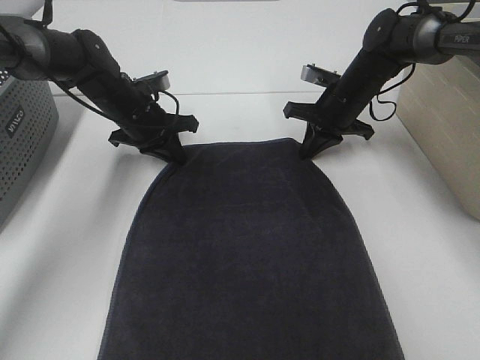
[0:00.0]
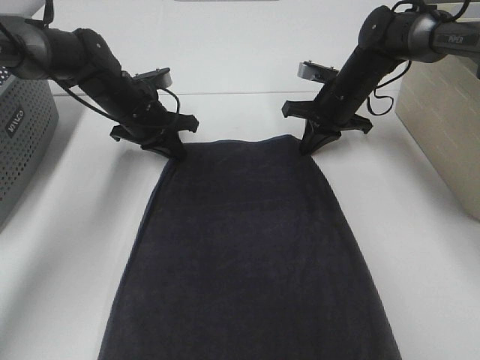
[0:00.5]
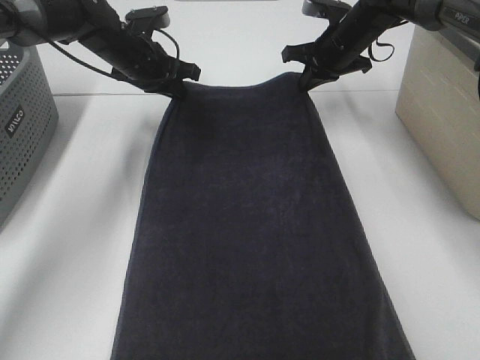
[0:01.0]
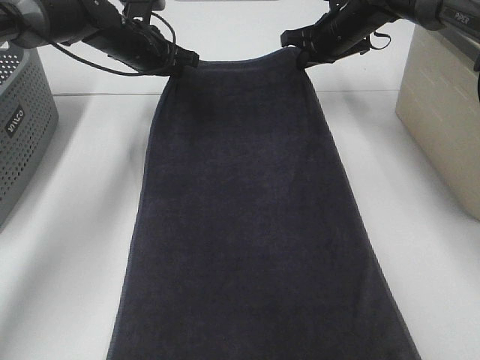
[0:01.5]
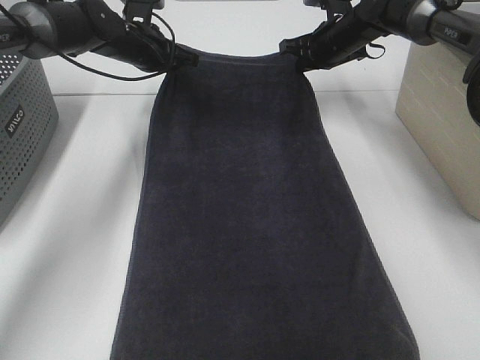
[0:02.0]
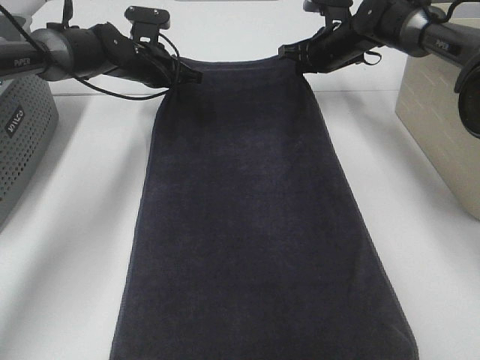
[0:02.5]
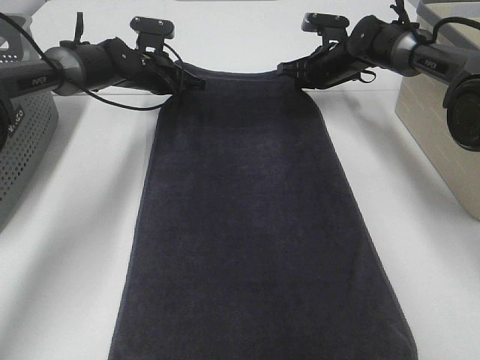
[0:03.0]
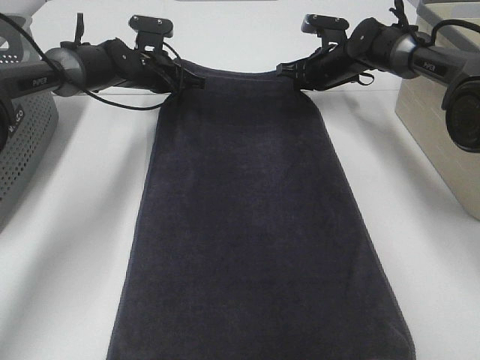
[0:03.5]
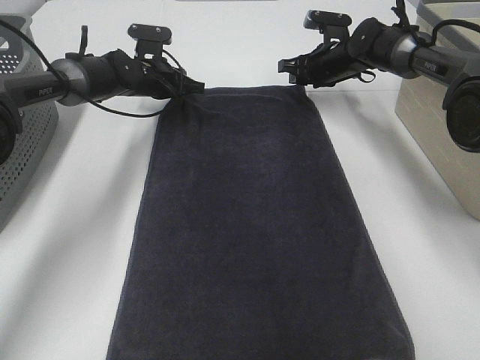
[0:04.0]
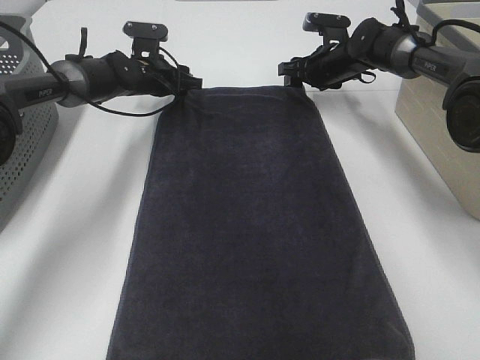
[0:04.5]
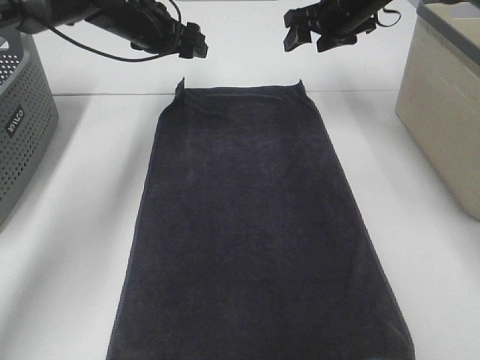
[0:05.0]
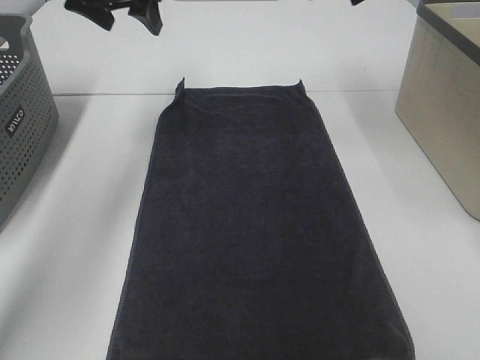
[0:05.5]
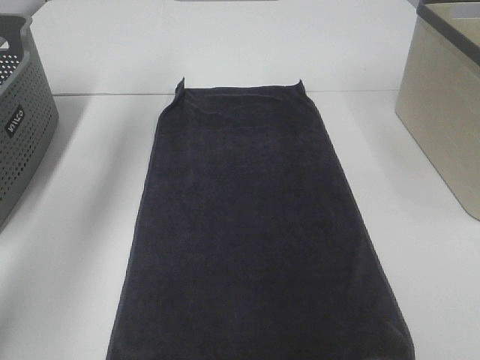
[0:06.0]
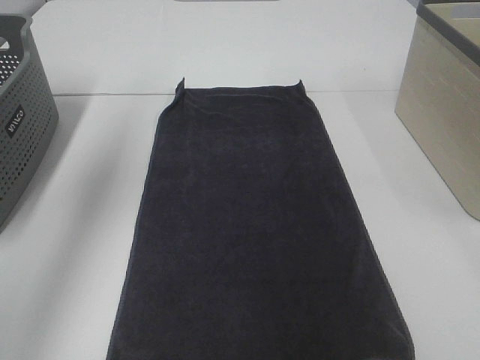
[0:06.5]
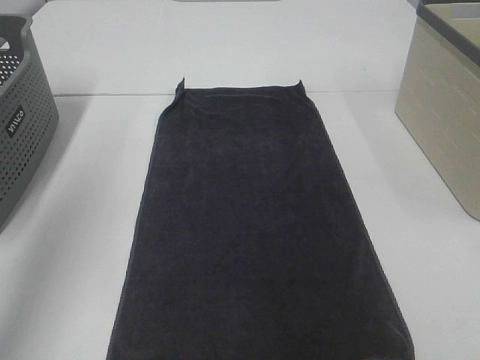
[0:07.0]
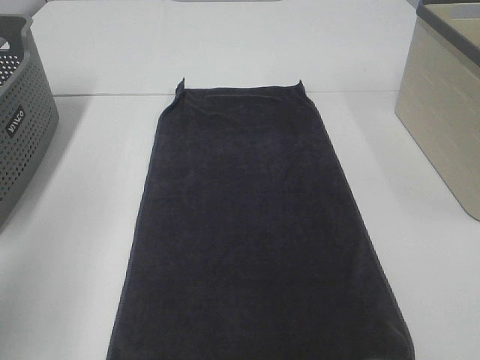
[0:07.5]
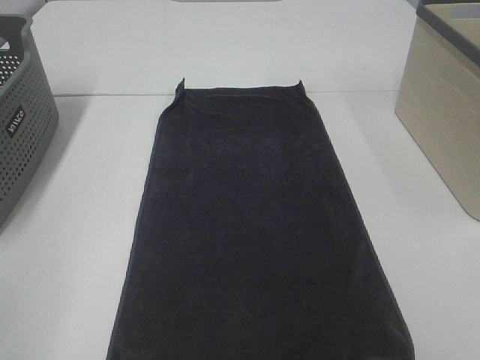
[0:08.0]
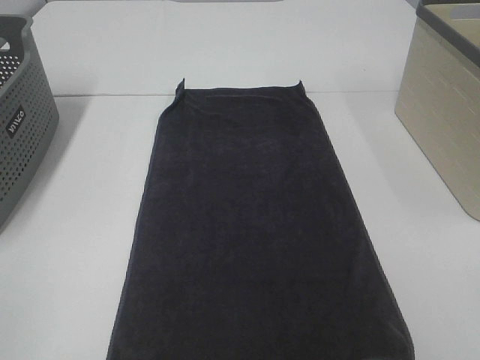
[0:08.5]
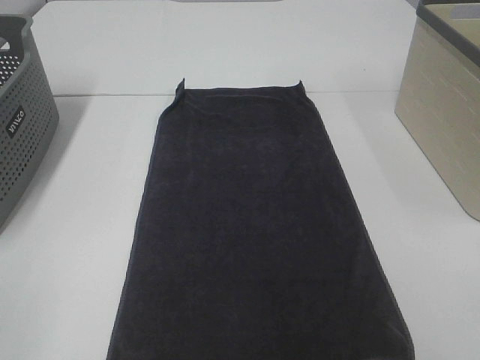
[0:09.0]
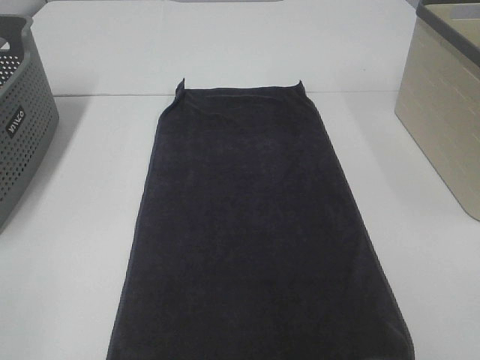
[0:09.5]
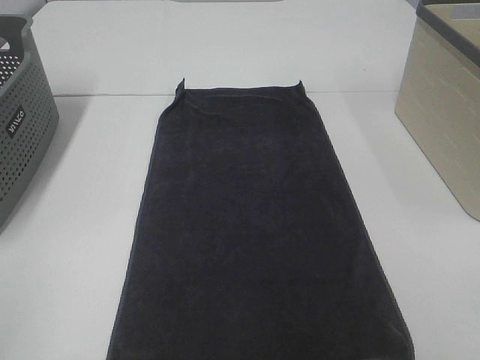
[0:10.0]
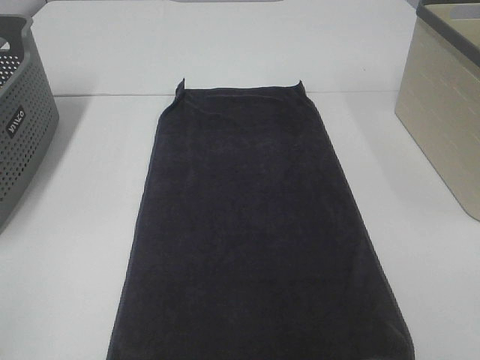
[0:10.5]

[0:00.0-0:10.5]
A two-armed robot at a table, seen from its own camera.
Task of the whole recording: Remove the towel and place it.
0:00.0 to 0:02.0: The grippers both shift forward and upward by about 10 cm.
0:02.0 to 0:04.0: The right gripper changes place by roughly 5 cm, and opens; the left gripper moves downward, about 5 cm.
0:04.0 to 0:06.5: The right gripper shifts some 50 cm backward and upward. The left gripper travels upward and backward by roughly 40 cm, and opens its fingers.
0:06.5 to 0:08.5: The left gripper shifts approximately 35 cm backward.

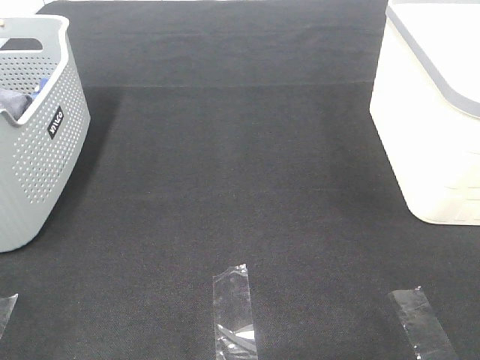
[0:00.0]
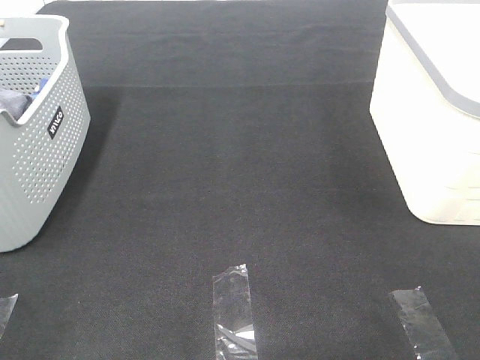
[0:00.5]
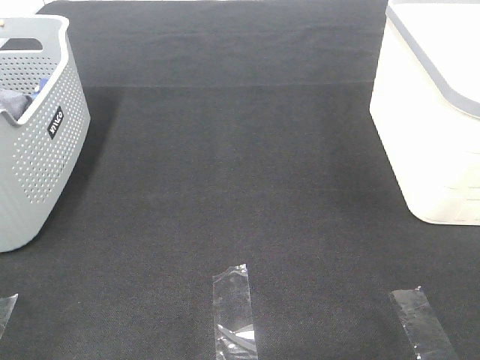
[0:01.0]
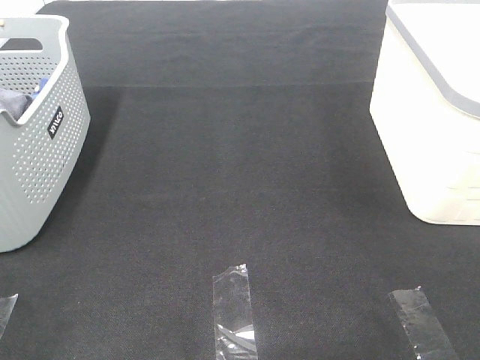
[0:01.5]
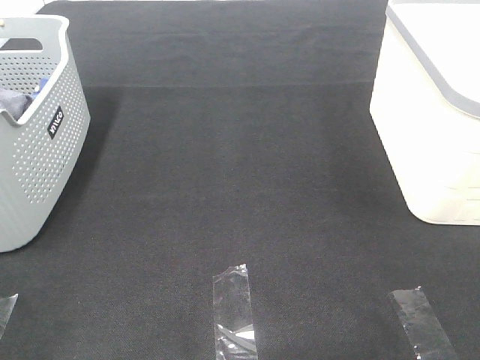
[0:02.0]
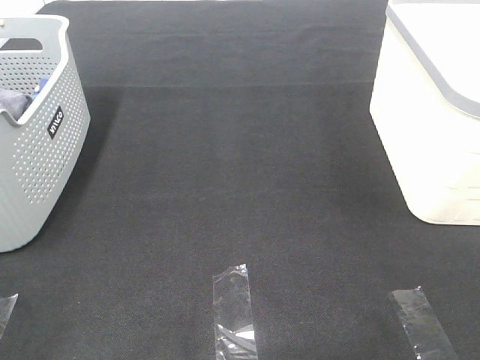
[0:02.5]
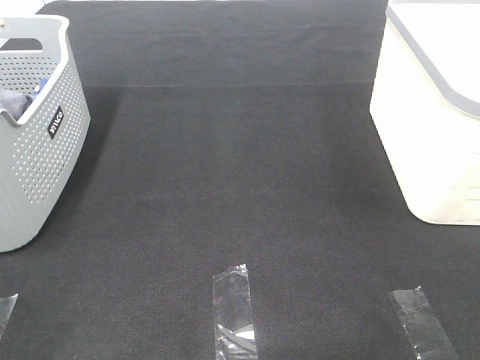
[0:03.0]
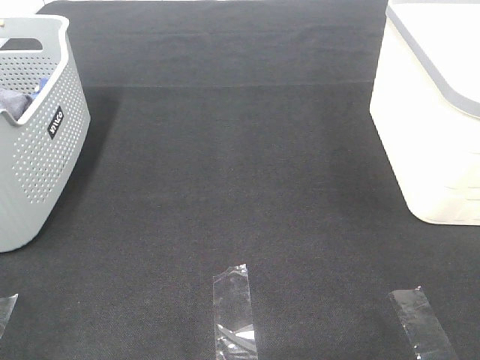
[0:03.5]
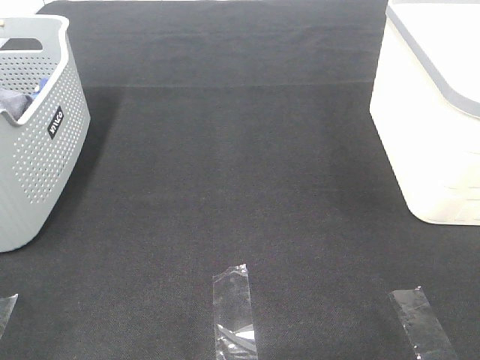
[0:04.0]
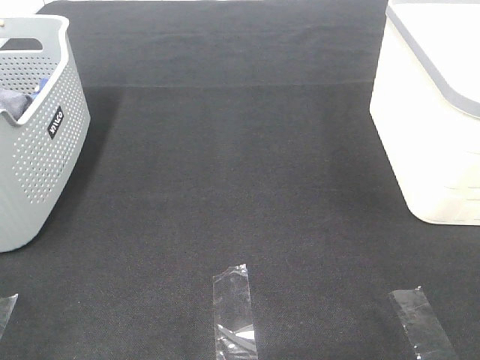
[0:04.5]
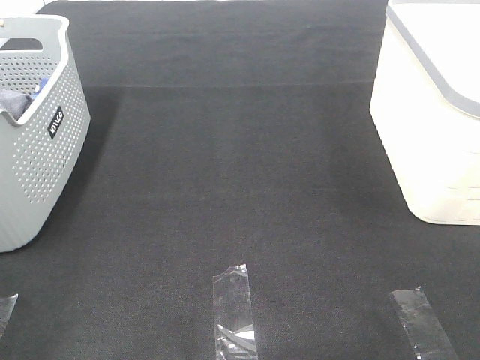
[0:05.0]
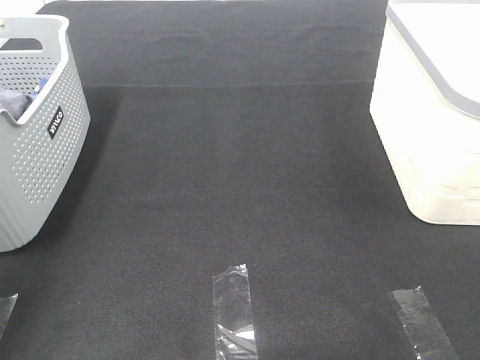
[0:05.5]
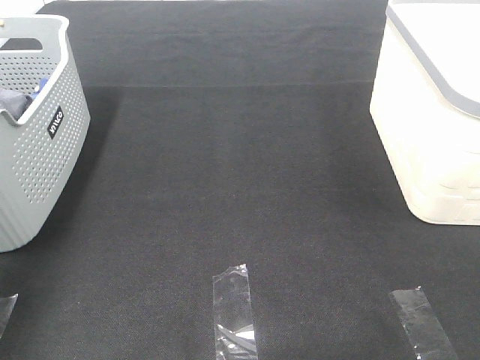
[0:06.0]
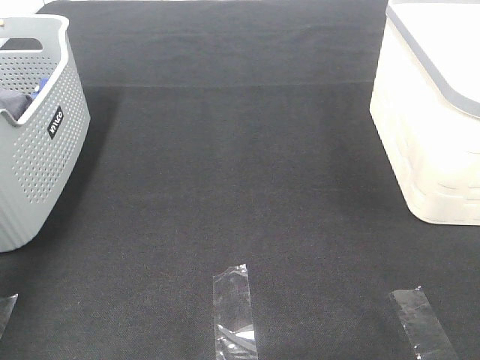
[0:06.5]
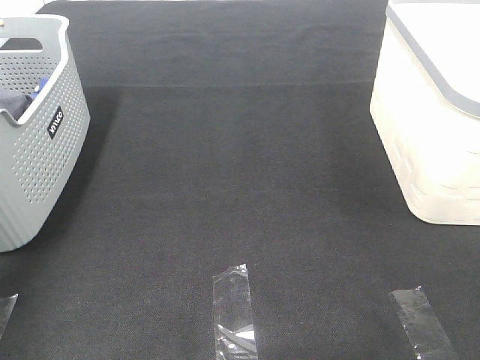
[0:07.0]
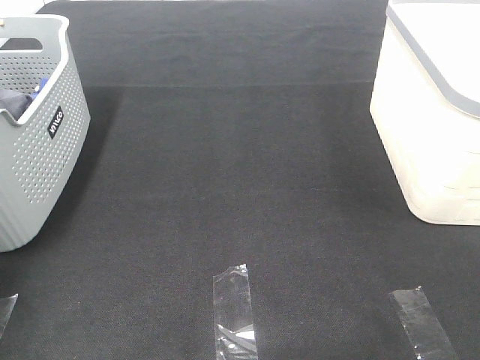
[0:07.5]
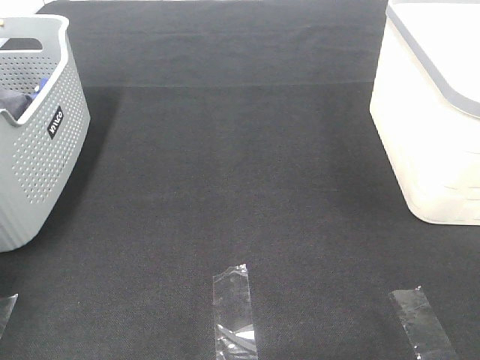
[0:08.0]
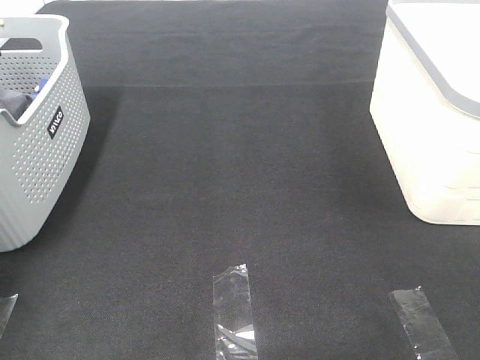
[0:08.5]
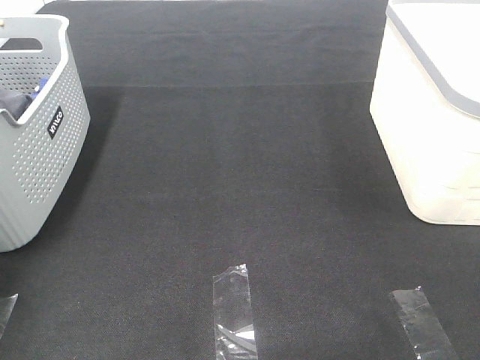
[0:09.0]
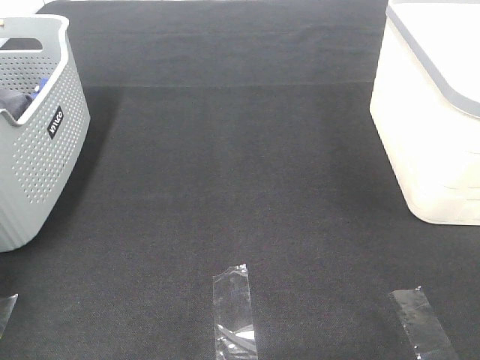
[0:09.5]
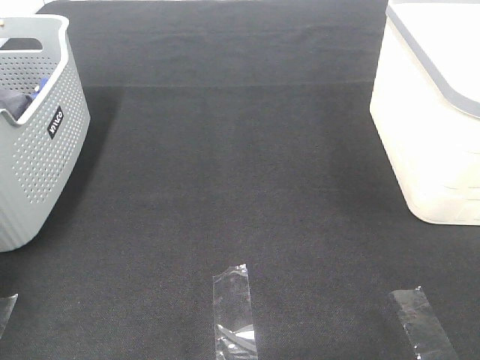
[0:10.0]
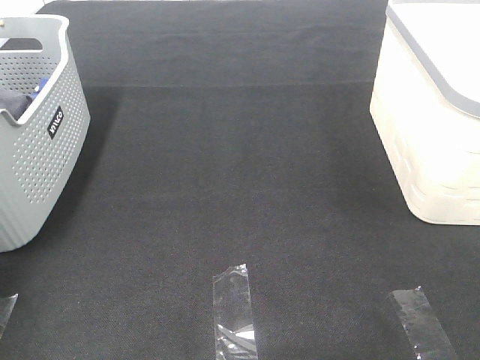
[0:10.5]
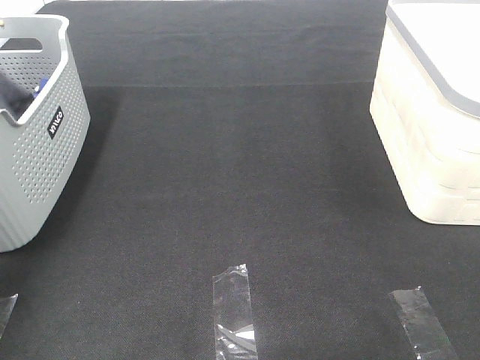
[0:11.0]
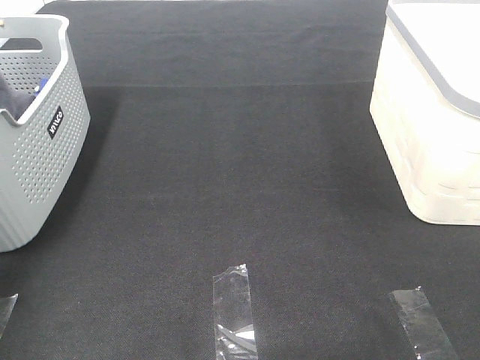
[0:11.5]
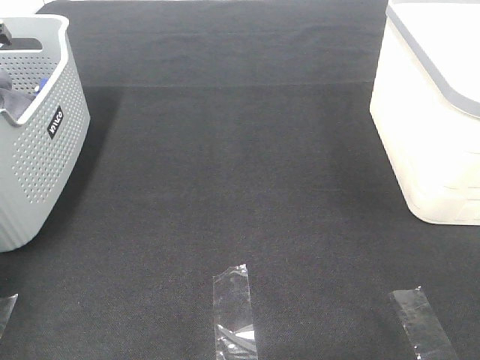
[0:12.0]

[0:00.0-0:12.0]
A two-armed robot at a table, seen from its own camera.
Task of the whole recording: Remove the towel and place it.
0:00.0 to 0:04.0: Both grippers stay put.
0:04.0 to 0:06.0: The left gripper is displaced forward by some 25 cm.

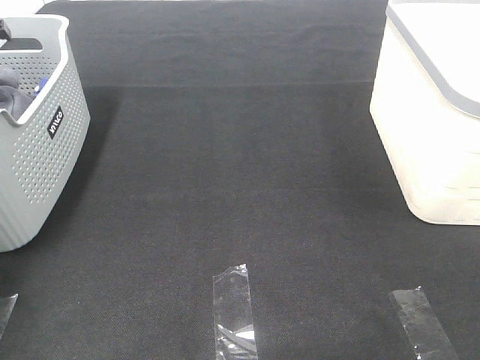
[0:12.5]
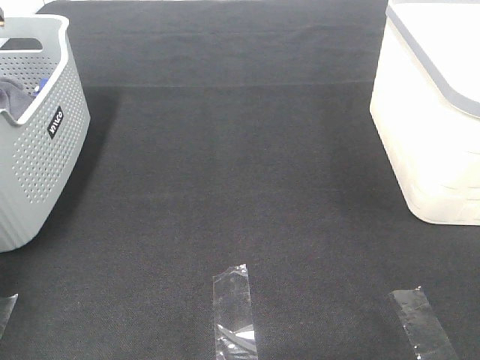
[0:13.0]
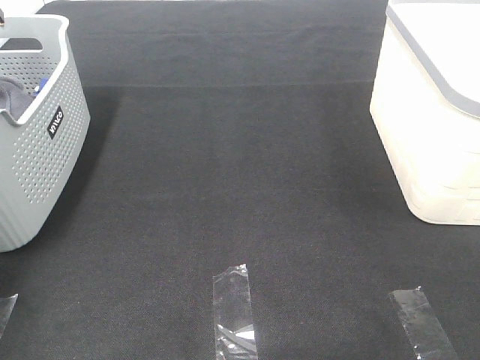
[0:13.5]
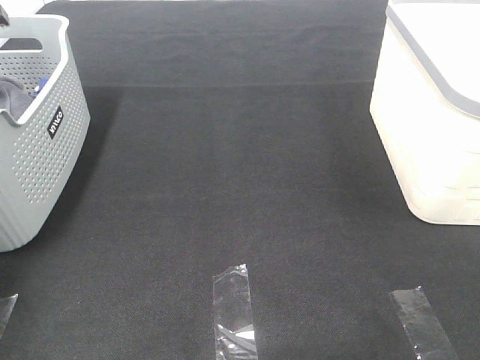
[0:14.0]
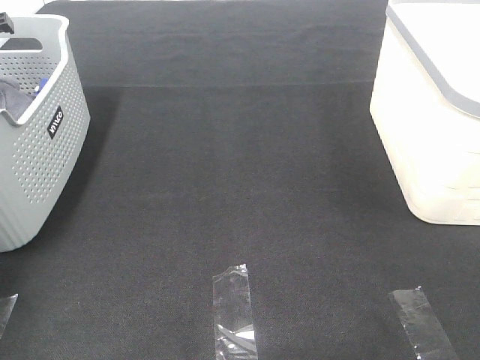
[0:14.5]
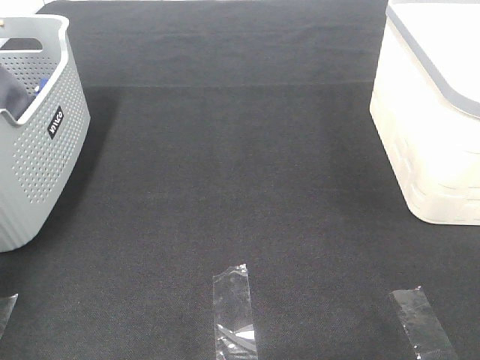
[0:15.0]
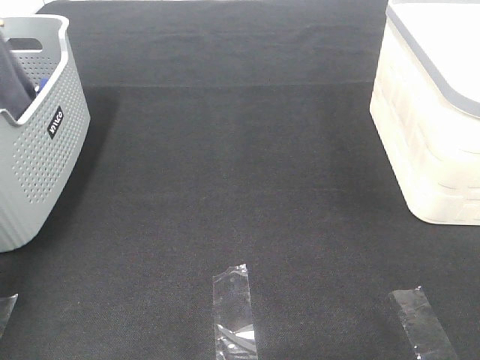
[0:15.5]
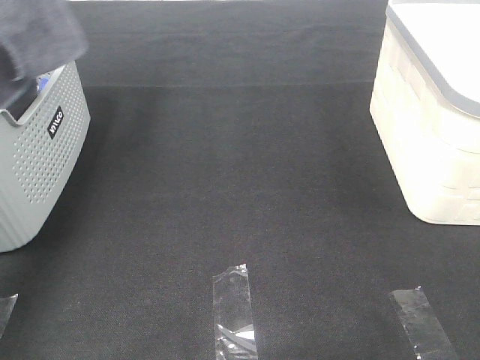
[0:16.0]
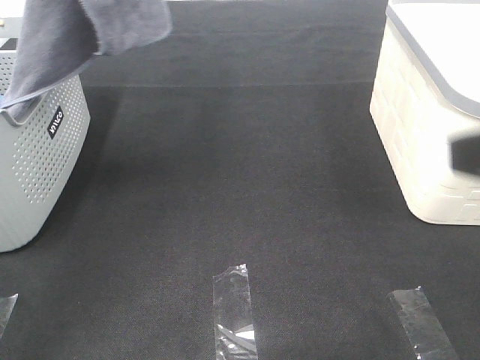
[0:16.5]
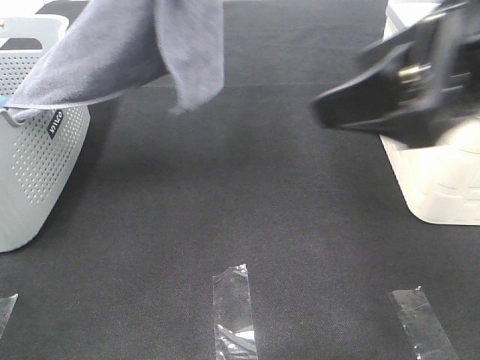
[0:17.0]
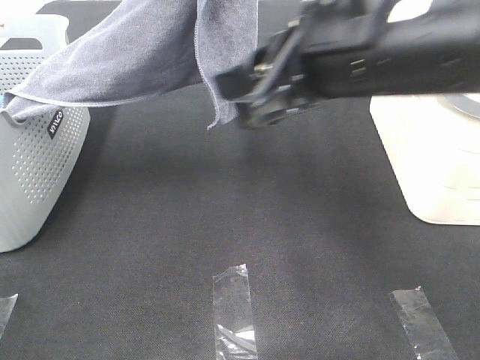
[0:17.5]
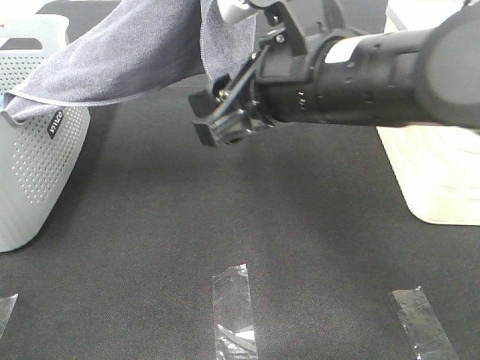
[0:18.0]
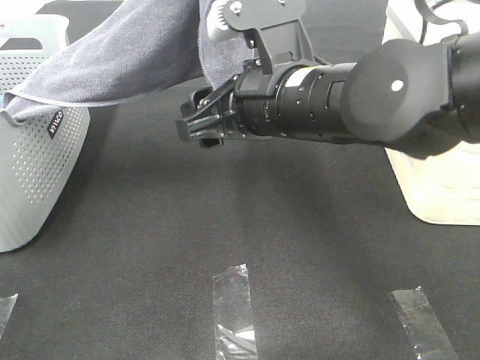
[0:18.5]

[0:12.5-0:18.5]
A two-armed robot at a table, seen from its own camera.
Task of the whole recording: Remove the towel and place it.
0:14.5 to 0:16.5: The right gripper travels forward and to the left by roughly 15 cm. Meanwhile the left gripper is displaced upward, to the right and backward by some 30 cm.
0:16.5 to 0:18.5: The left gripper heads to the right and downward, covering some 10 cm, while the right gripper shifts about 25 cm to the left, forward and downward.
